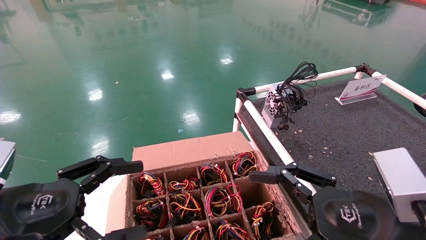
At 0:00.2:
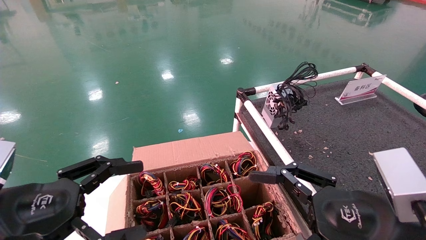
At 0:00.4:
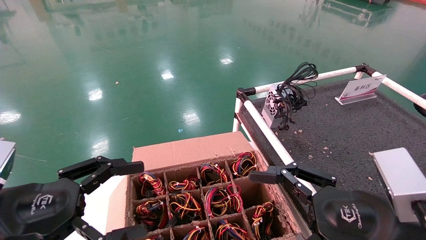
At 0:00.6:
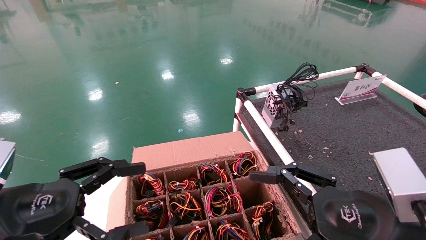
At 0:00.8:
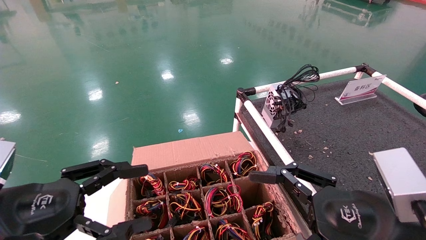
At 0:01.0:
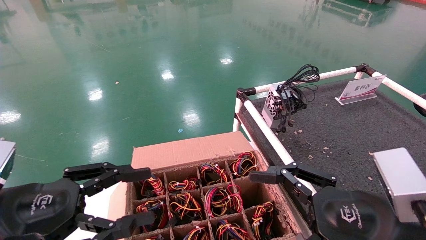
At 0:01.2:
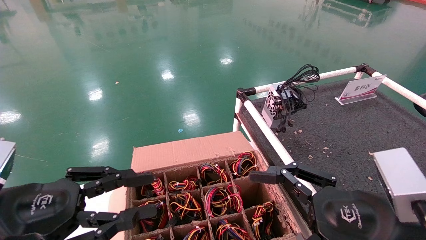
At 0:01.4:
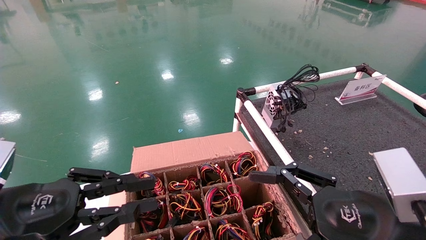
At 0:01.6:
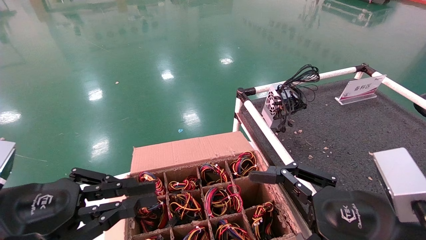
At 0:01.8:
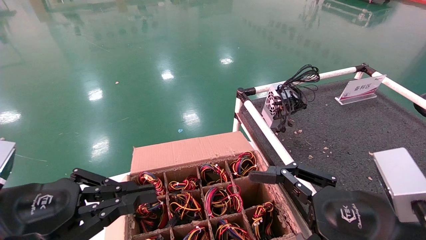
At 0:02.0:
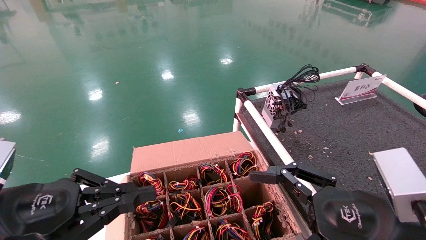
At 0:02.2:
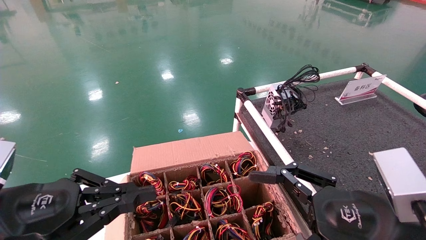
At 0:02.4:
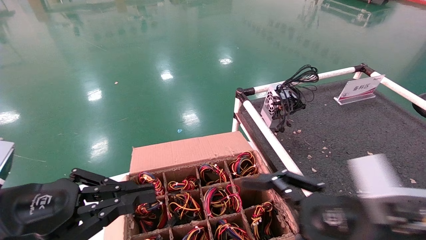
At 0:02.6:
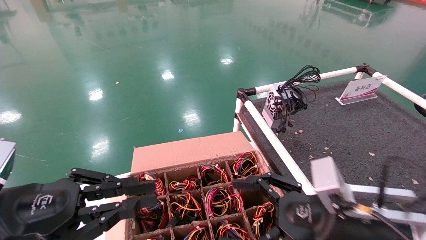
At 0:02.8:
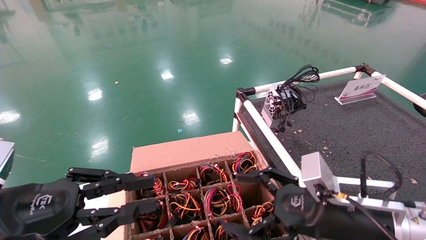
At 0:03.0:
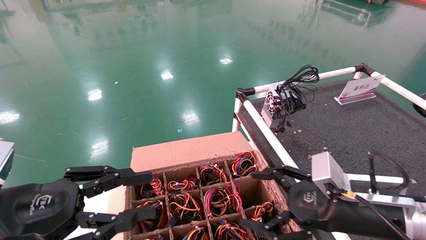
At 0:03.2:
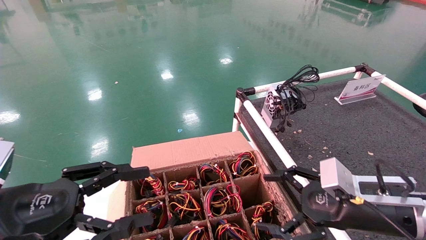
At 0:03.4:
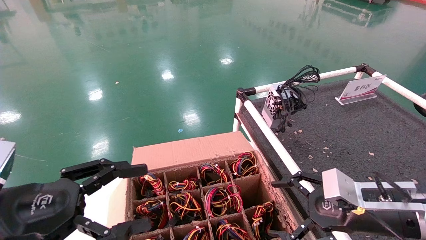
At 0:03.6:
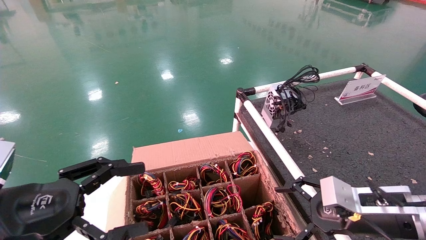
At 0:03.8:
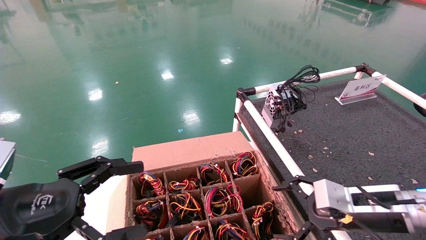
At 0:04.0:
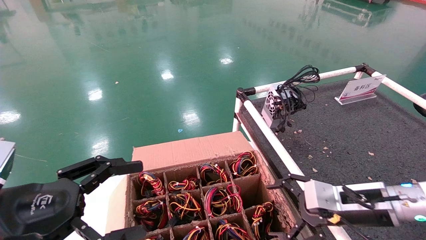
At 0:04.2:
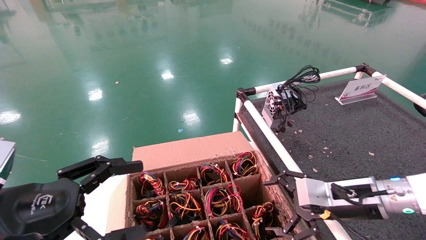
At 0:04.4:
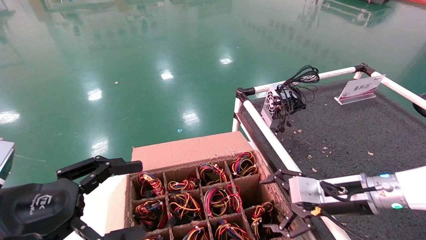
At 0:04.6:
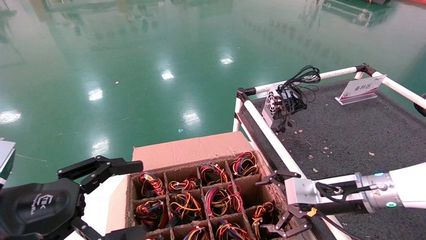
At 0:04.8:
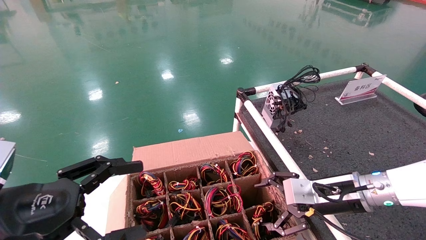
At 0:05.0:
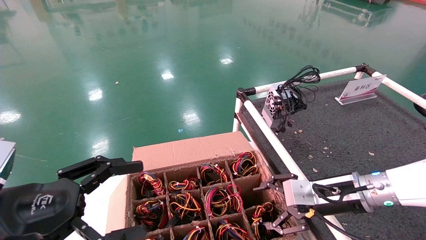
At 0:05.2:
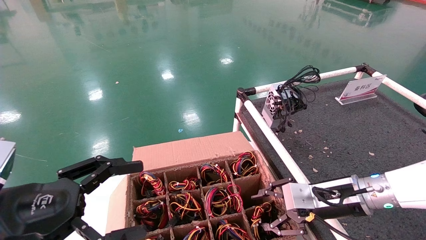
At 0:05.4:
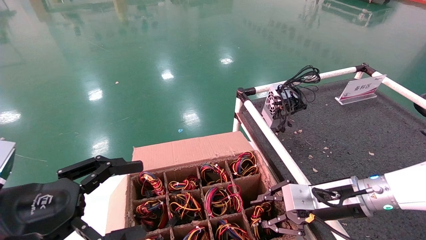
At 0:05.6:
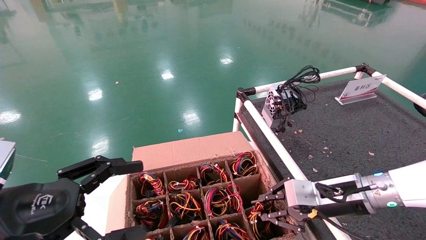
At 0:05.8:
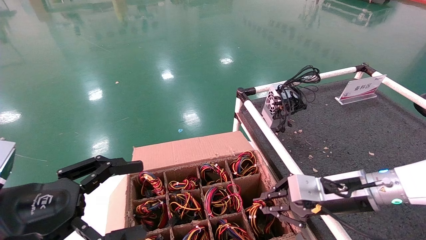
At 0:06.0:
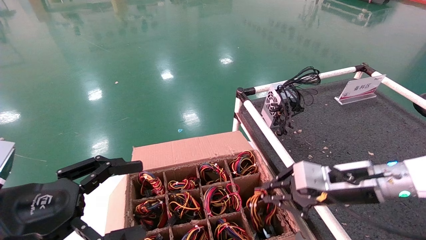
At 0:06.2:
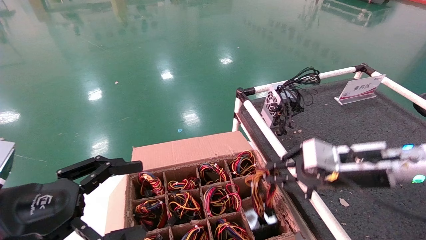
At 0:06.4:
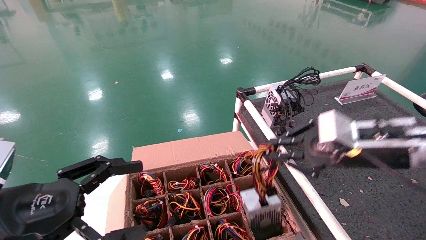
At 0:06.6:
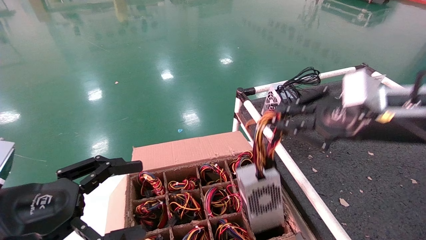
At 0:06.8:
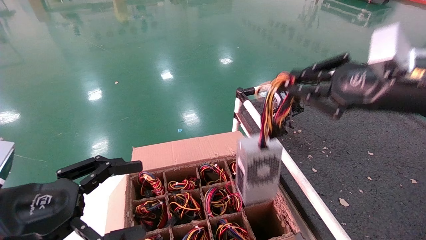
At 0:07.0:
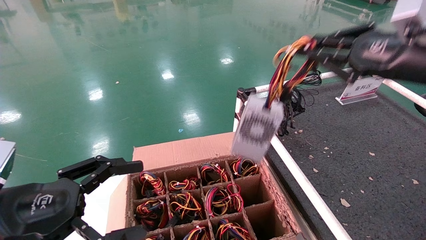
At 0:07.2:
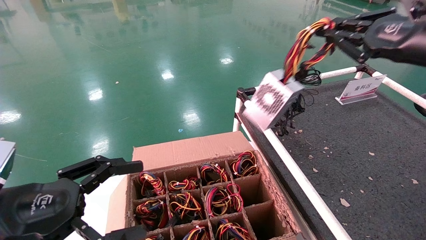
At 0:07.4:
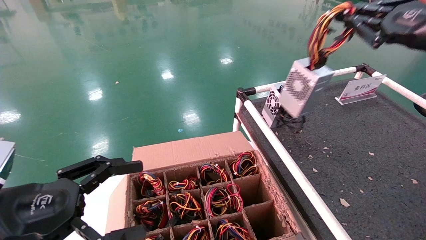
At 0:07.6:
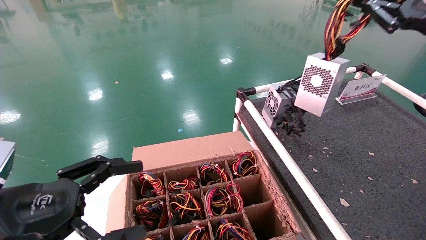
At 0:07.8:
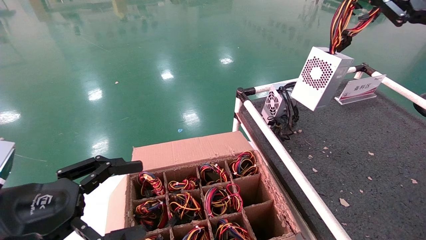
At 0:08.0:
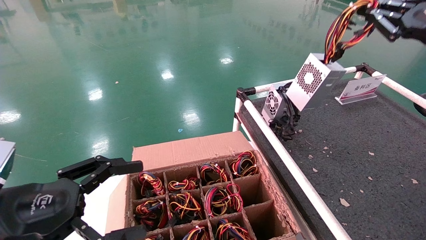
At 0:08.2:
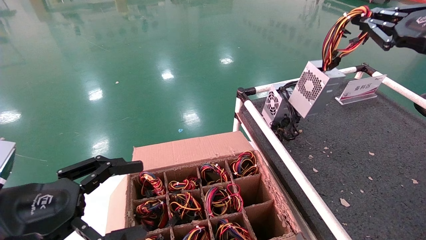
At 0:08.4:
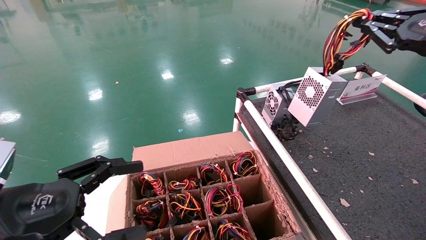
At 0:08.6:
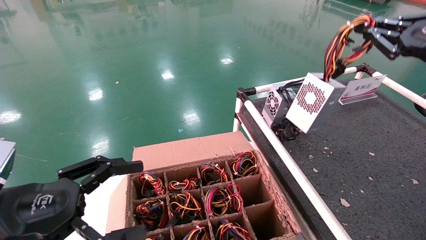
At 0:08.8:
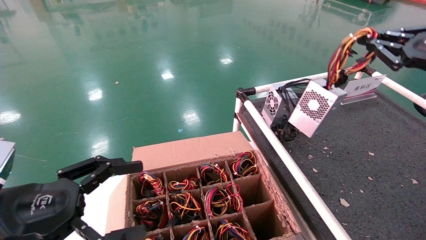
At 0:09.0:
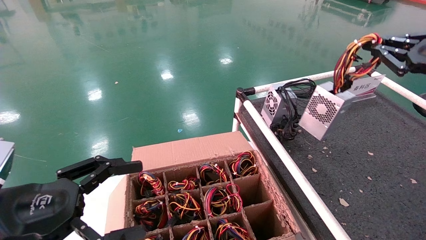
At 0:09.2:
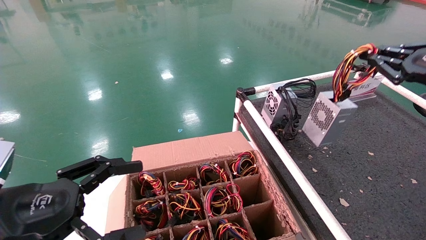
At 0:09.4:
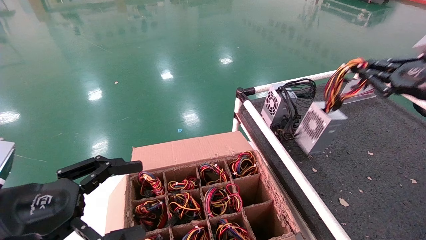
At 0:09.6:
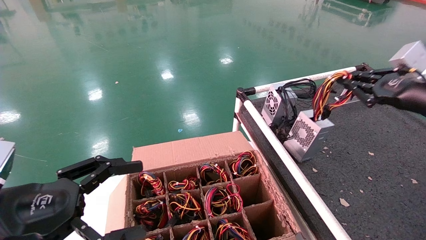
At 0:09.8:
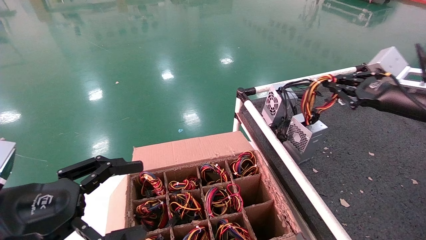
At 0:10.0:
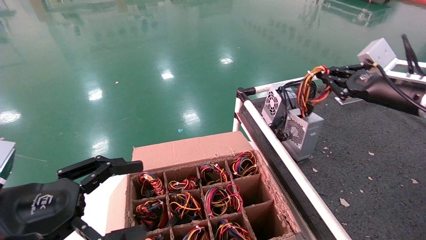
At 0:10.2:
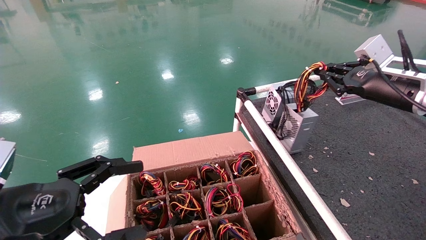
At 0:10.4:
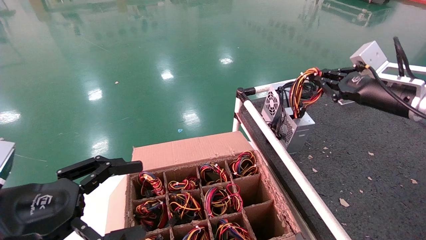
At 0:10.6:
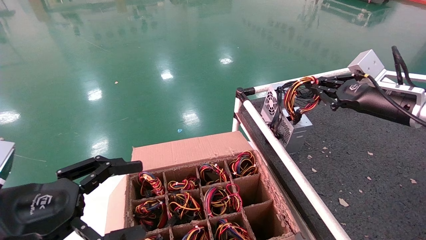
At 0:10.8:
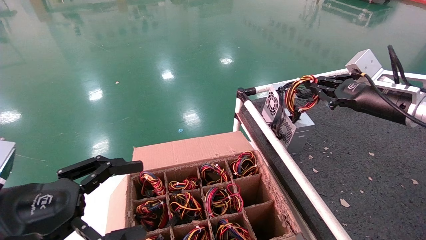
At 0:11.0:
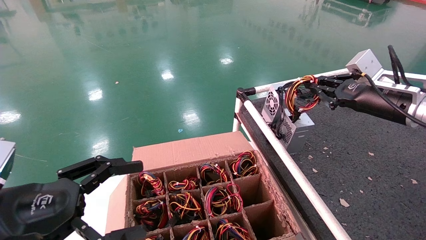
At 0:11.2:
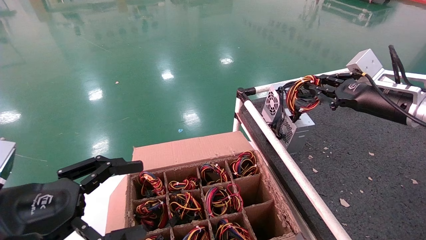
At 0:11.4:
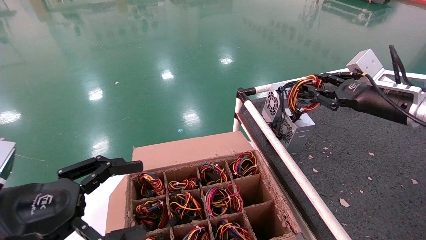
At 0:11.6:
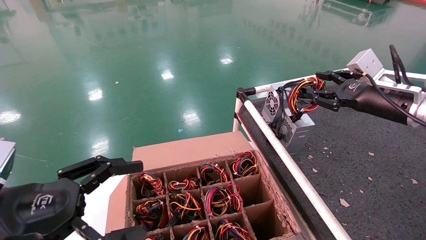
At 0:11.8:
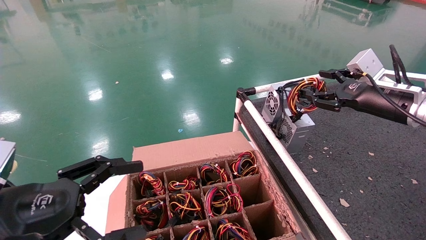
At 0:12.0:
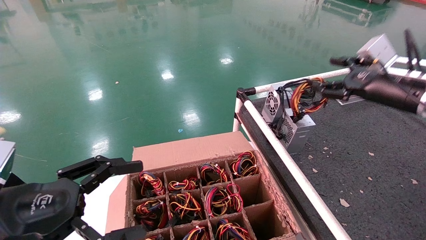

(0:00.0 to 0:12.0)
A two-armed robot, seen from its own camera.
Step, 0:02.8 - 0:06.2: Grab and lift the power supply from the large box.
Step, 0:06.4 - 0:11.6: Place the power supply on the operating table.
0:00.0 - 0:01.6: The left gripper closes its fingers.
0:01.6 - 0:03.0: The right gripper shifts about 10 cm forward.
0:03.0 - 0:04.4: The left gripper opens its fingers, while the right gripper shifts roughly 10 cm forward.
0:04.4 - 0:06.0: The right gripper closes its fingers.
0:06.0 - 0:07.6: The right gripper is displaced upward and to the right by some 25 cm.
0:07.6 - 0:09.0: The right gripper moves downward, about 5 cm.
0:09.0 - 0:10.4: The right gripper is displaced forward and to the left by some 10 cm.
0:10.4 - 0:12.0: The right gripper opens its fingers.

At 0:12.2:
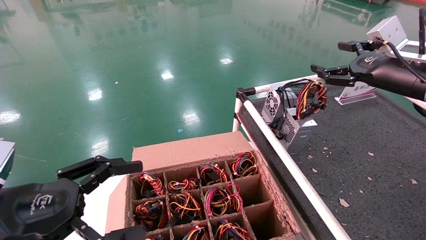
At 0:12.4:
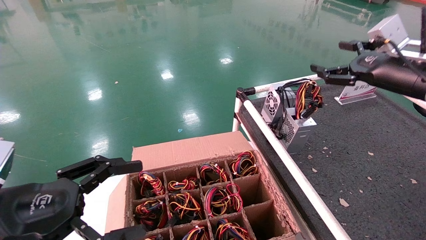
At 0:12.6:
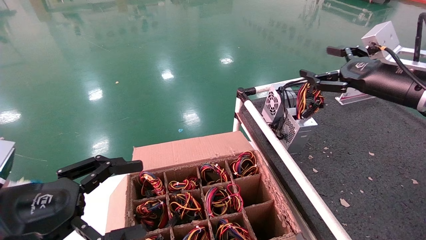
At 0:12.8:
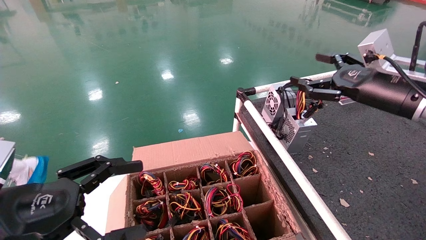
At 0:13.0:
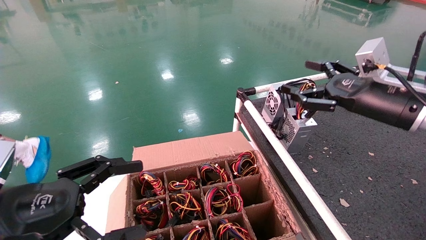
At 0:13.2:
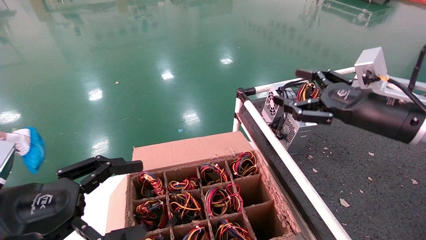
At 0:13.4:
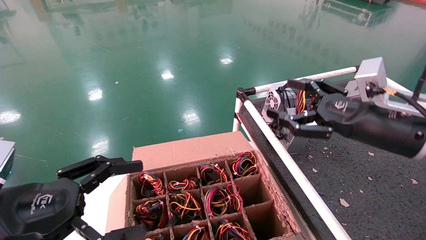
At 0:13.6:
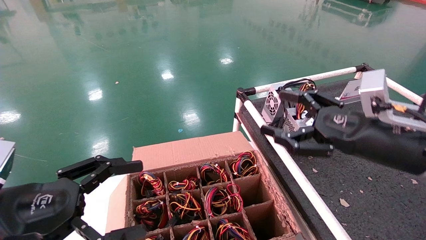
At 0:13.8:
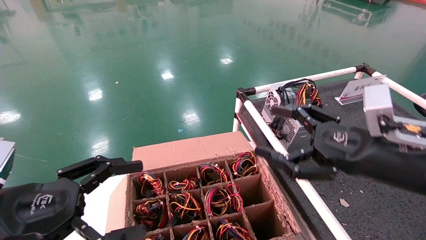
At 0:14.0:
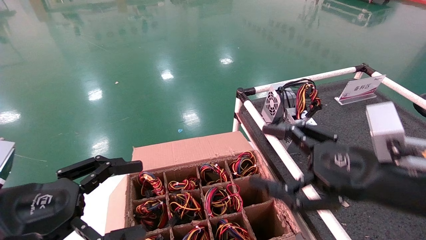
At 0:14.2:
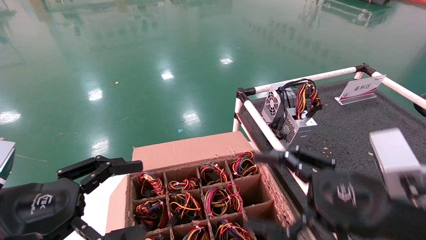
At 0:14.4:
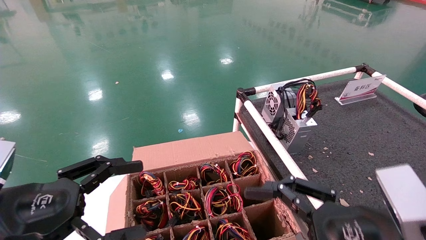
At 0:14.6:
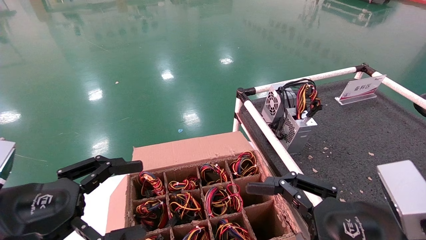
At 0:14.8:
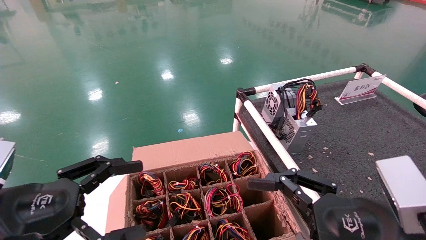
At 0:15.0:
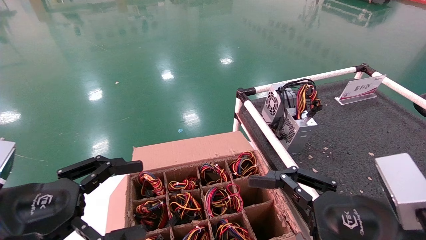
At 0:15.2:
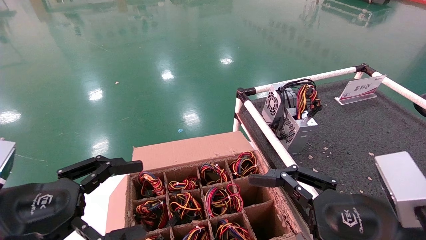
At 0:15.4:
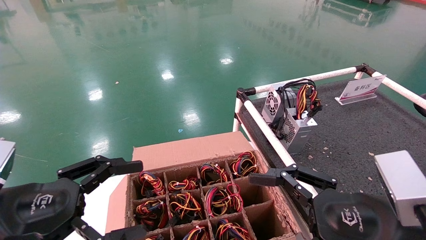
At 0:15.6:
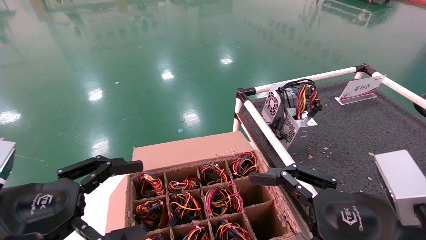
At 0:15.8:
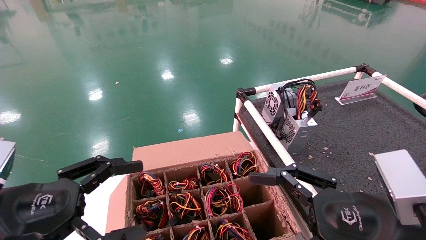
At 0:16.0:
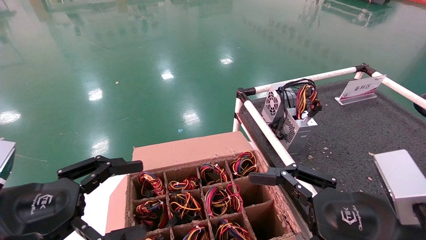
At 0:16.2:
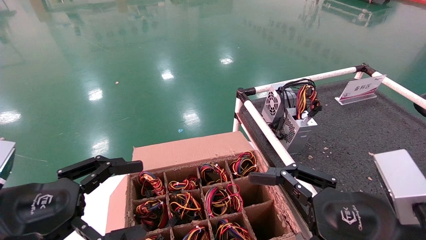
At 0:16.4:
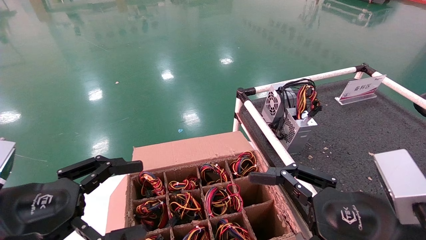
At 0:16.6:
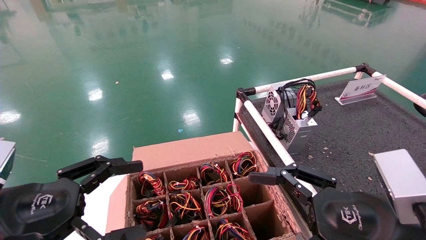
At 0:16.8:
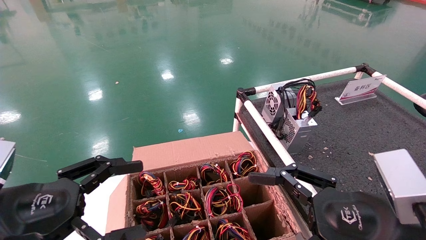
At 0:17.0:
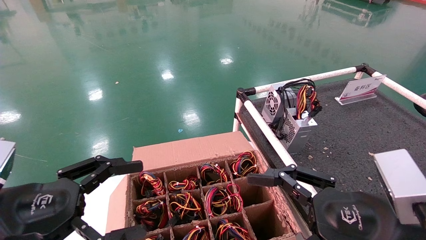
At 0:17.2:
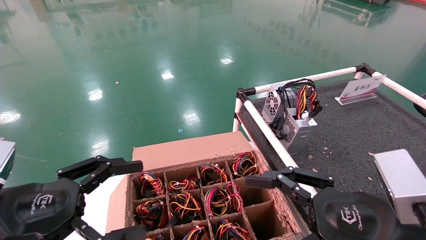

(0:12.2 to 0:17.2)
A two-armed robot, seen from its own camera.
0:12.2 - 0:13.8: The right gripper travels backward, downward and to the left by about 20 cm.
0:13.8 - 0:15.6: The right gripper is displaced backward by approximately 5 cm.
0:15.6 - 0:17.2: Both grippers stay put.
